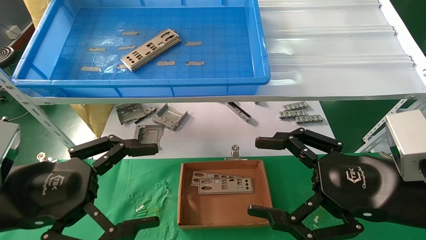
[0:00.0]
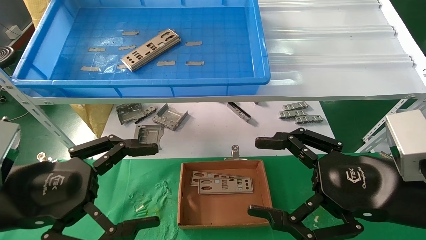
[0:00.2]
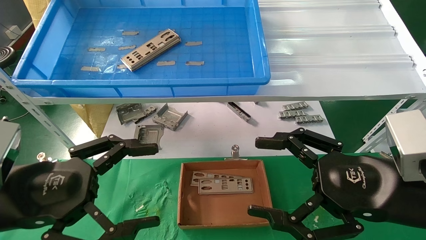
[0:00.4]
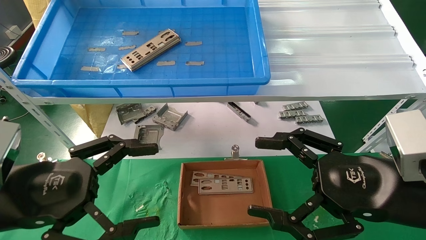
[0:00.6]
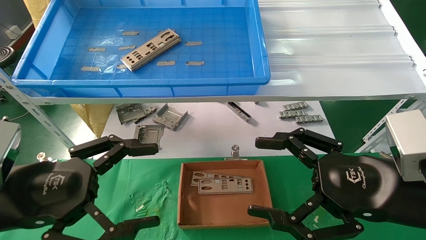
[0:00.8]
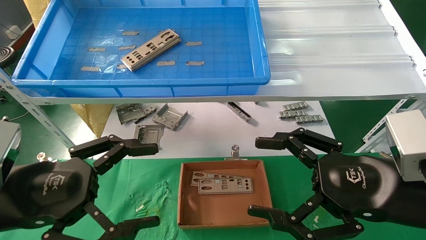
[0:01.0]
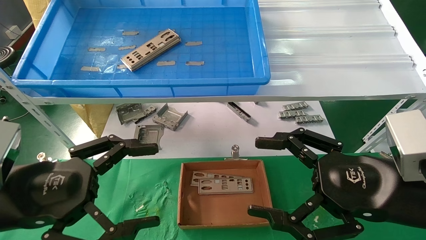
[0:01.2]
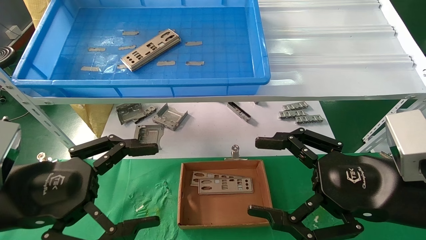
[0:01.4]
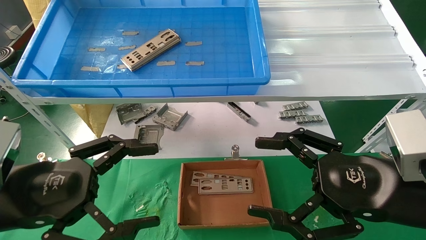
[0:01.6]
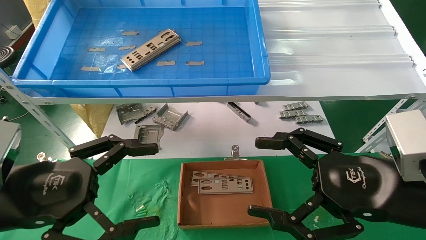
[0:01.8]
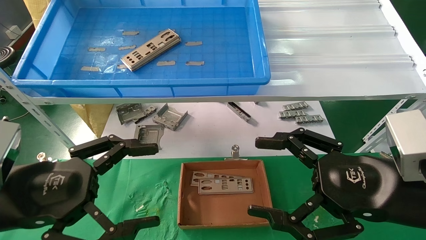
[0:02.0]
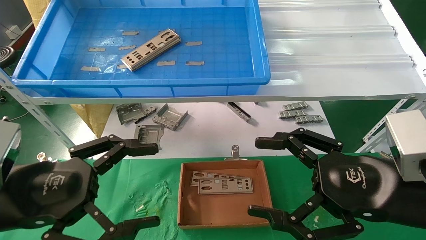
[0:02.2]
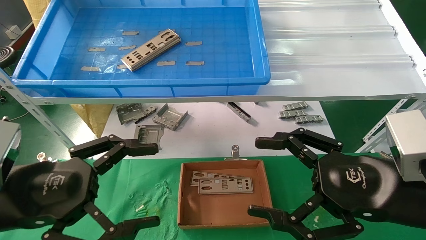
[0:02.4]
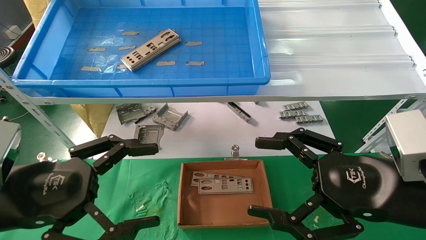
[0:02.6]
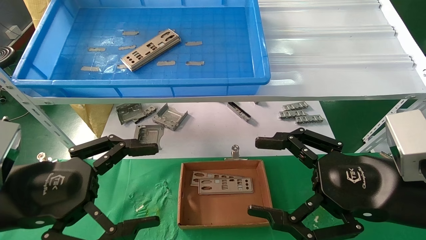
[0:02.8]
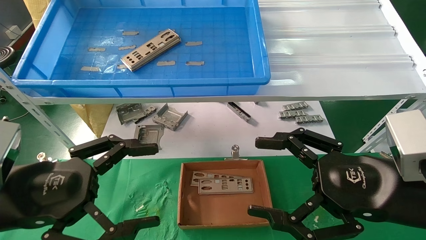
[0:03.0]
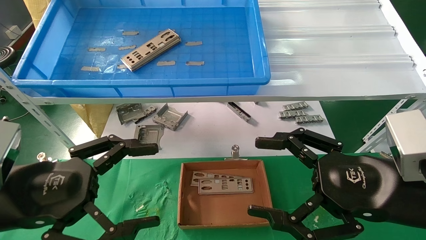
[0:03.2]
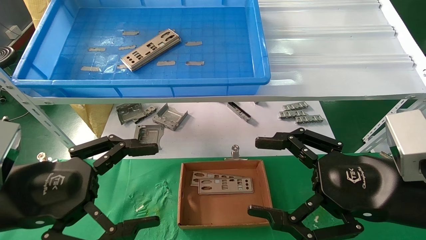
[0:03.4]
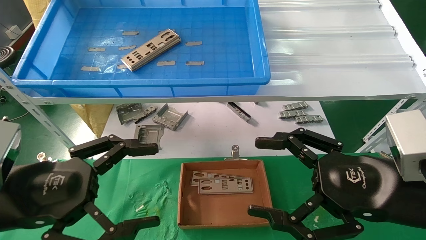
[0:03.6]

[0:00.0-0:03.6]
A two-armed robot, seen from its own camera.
Task of the whole recording: pick up the parts on the tray and put them in the cardboard box.
0:00.0 to 0:03.6: Neither gripper changes place.
